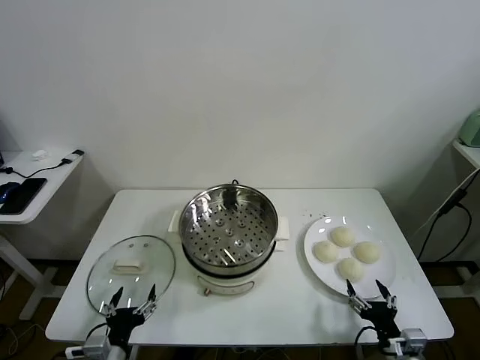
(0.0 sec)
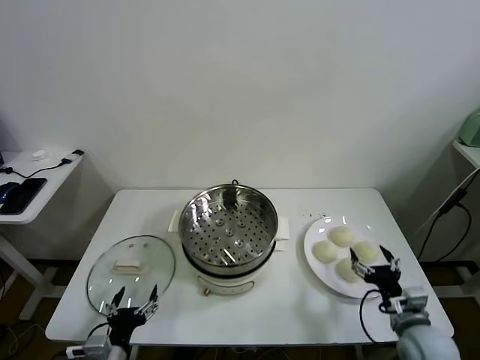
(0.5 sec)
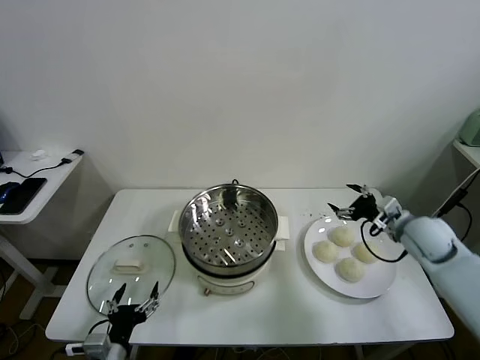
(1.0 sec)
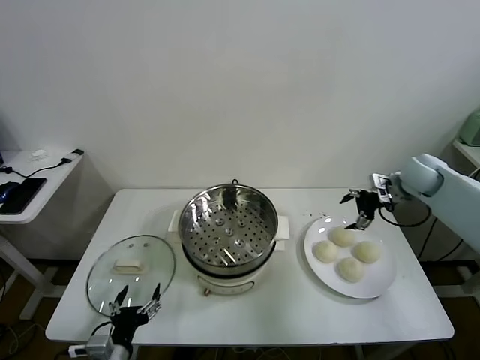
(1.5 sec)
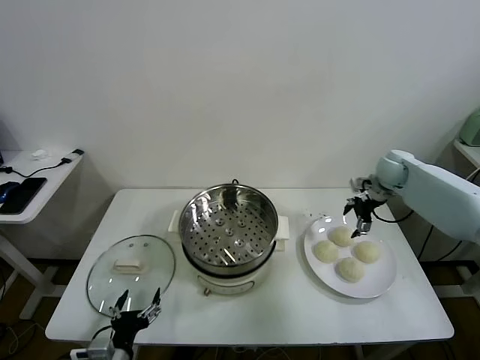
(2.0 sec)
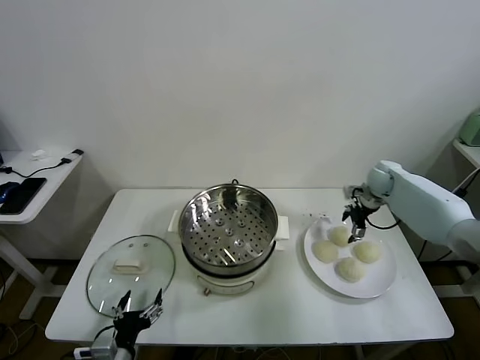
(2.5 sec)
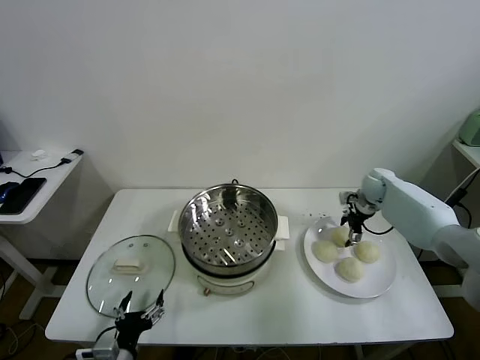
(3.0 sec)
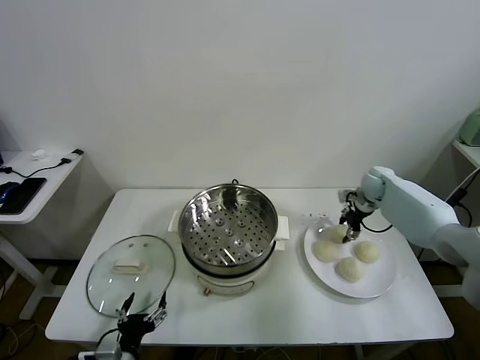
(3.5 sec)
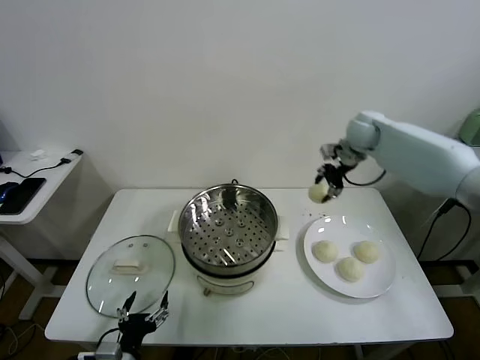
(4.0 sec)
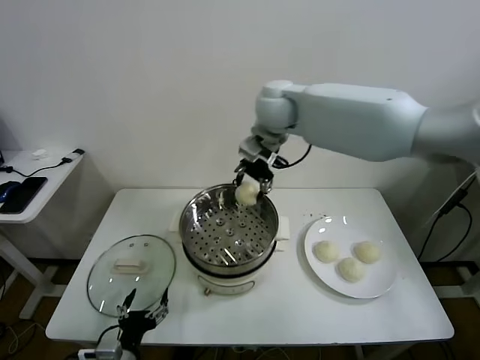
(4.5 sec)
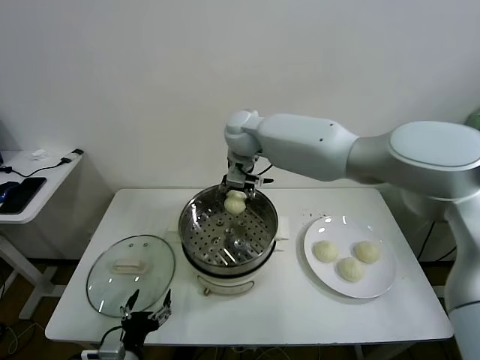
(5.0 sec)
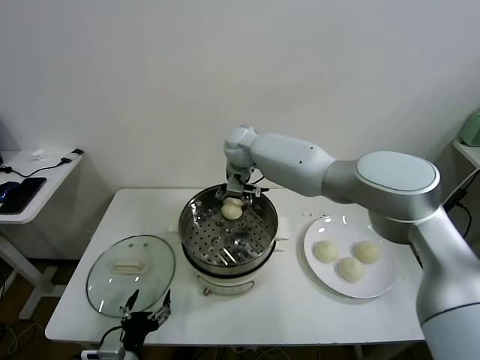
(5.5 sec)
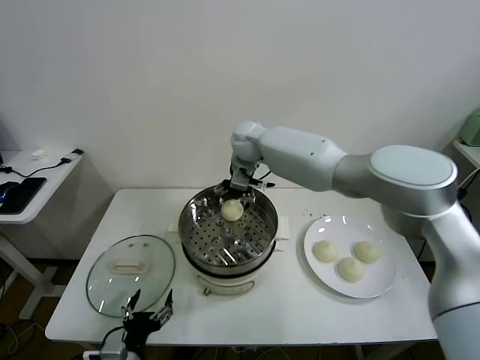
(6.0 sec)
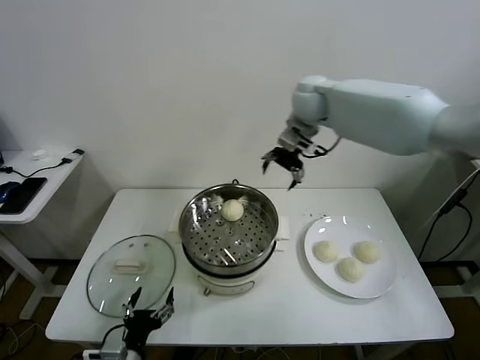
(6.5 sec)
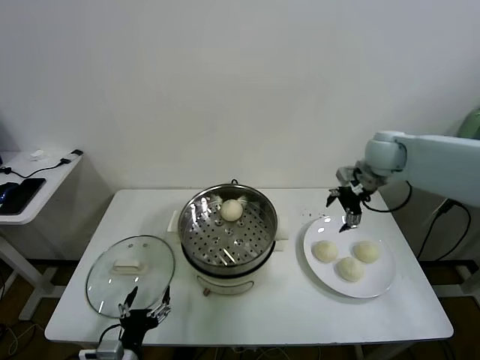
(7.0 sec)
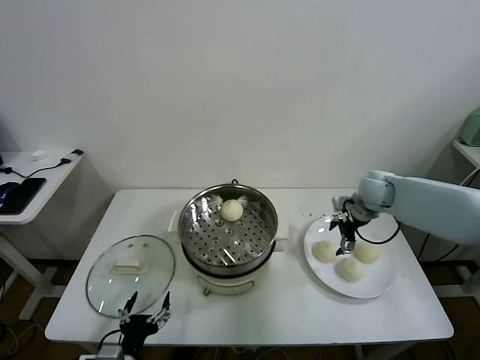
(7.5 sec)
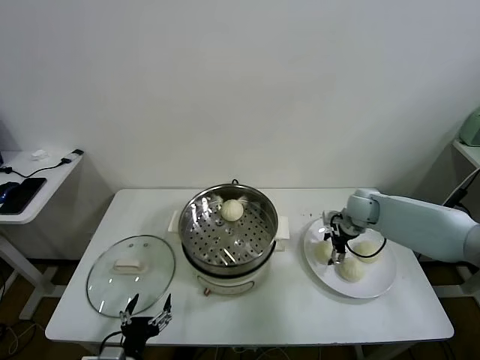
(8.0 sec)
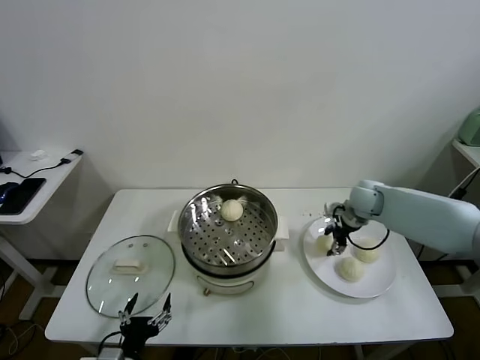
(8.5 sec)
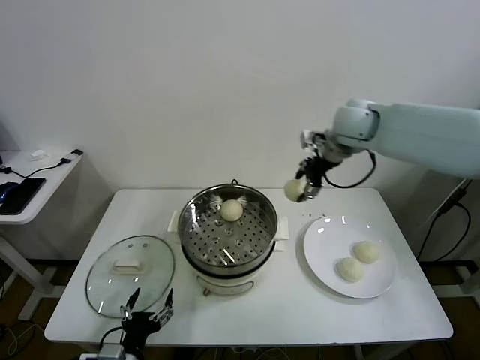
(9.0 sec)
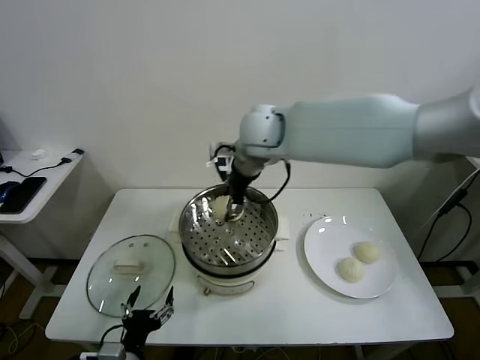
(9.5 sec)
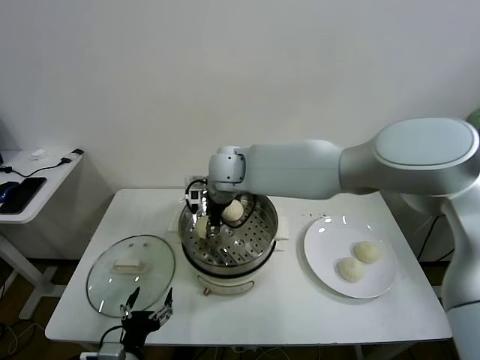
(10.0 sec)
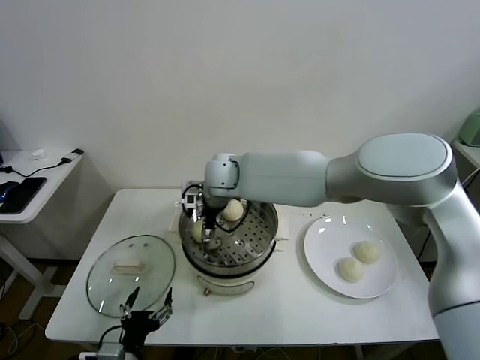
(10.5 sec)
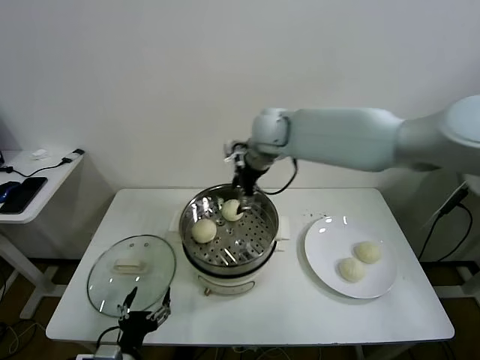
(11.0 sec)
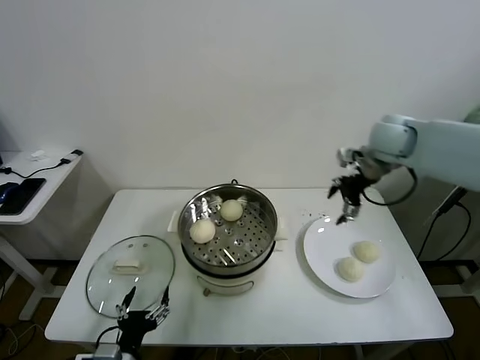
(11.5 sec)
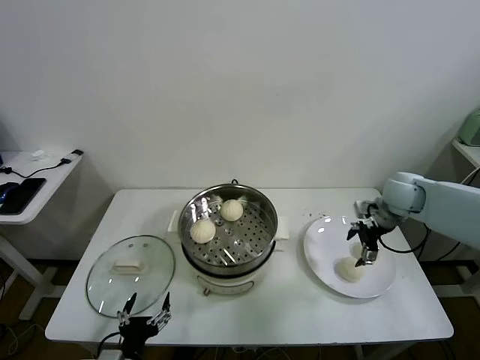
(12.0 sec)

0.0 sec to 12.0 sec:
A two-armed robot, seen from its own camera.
Task of the whole recording: take steamed baozi put them in steamer.
Step, 0.0 sec to 3.0 sec: Grasp the baozi in the plate with right gripper.
Step, 3.5 sec to 5.5 sec: Place the baozi on the steamer with right gripper.
Step, 6.0 sec to 8.0 sec: Grasp the baozi in the plate with right gripper.
Step, 8.5 sec to 10.5 sec: Place the baozi on the steamer with right gripper.
2.0 sec to 4.0 sec: The right gripper travels upward and to the left by about 20 cm, and closes its fingers.
4.0 sec to 6.0 sec: The right gripper moves to the left, some 25 cm, and opens its fingers.
6.0 sec to 8.0 sec: The right gripper heads to the right and downward, covering about 35 cm.
8.0 sec to 10.0 sec: The right gripper heads to the left and upward, covering about 40 cm, and closes up.
10.0 sec to 12.0 sec: The right gripper is displaced to the right by some 40 cm, and opens.

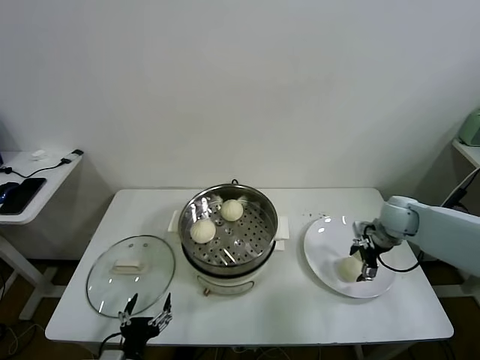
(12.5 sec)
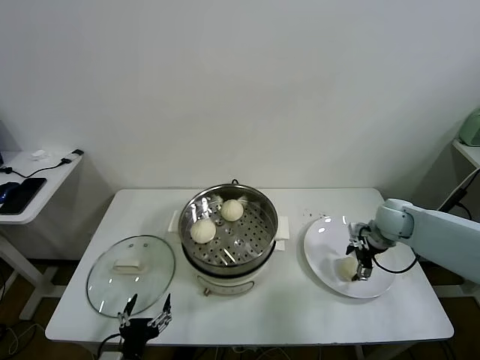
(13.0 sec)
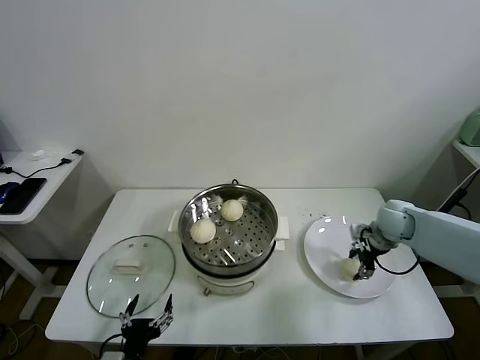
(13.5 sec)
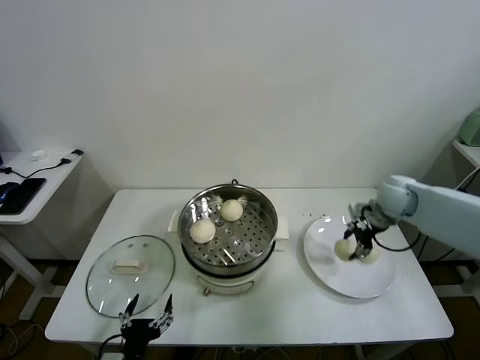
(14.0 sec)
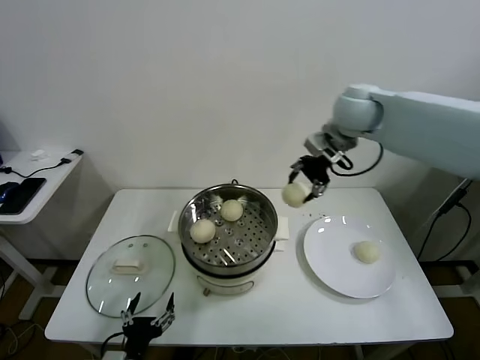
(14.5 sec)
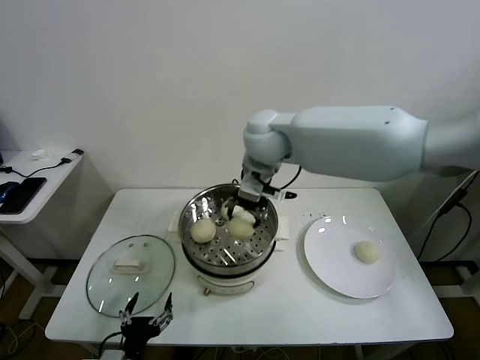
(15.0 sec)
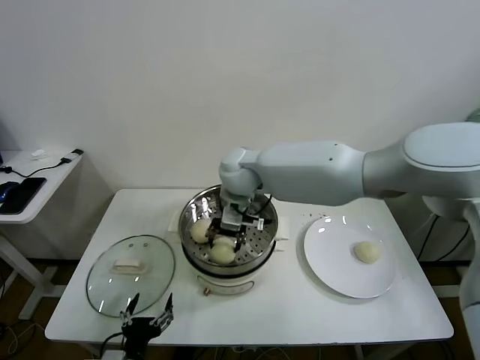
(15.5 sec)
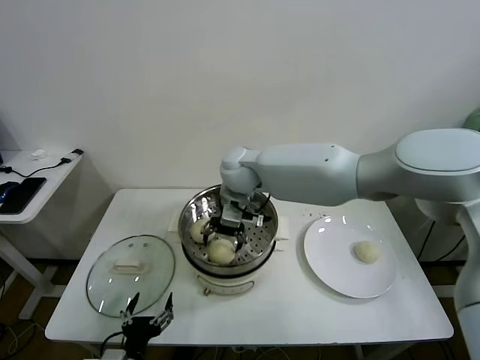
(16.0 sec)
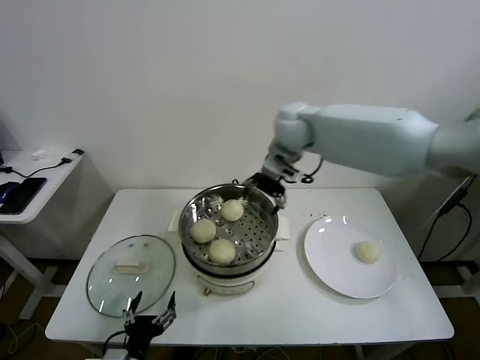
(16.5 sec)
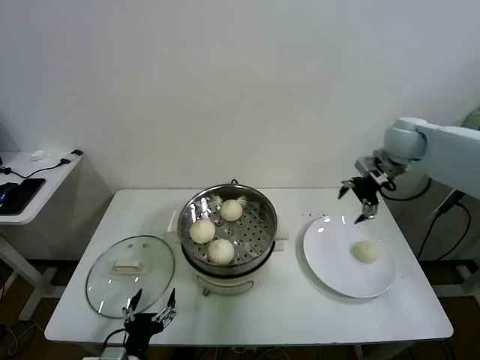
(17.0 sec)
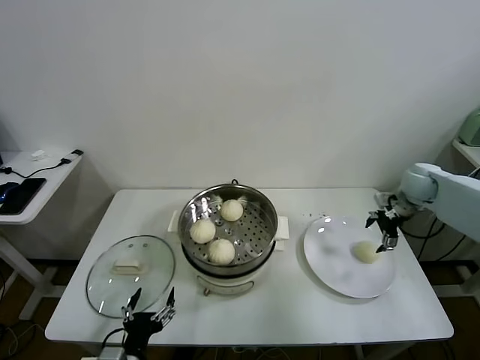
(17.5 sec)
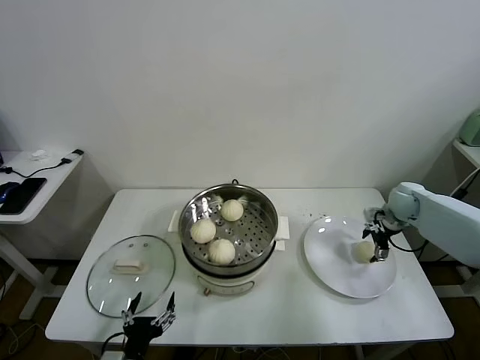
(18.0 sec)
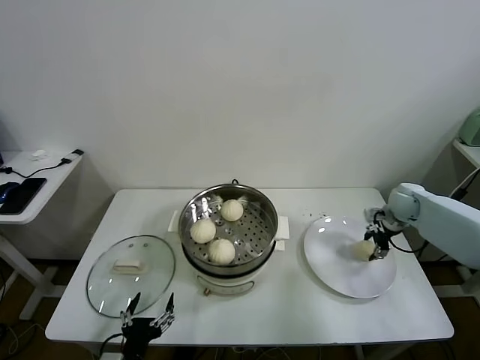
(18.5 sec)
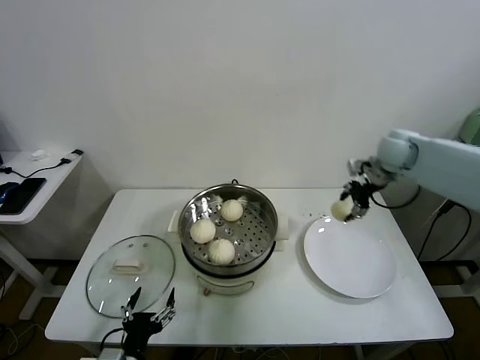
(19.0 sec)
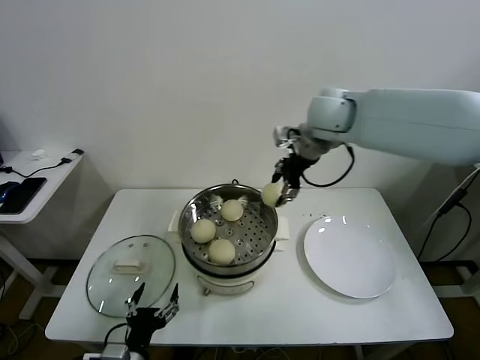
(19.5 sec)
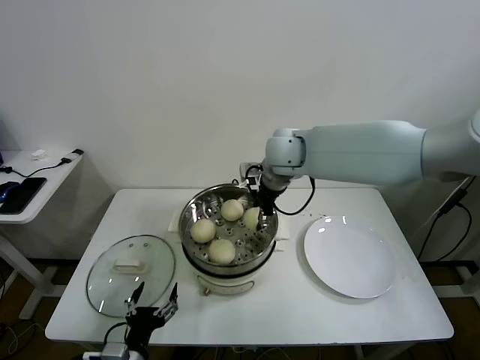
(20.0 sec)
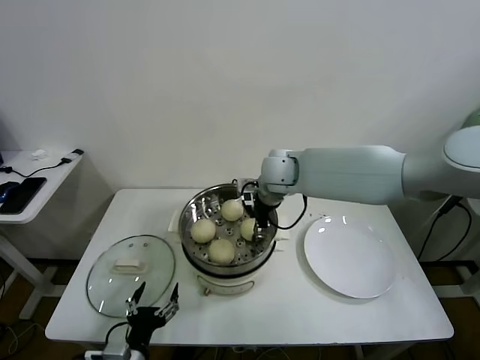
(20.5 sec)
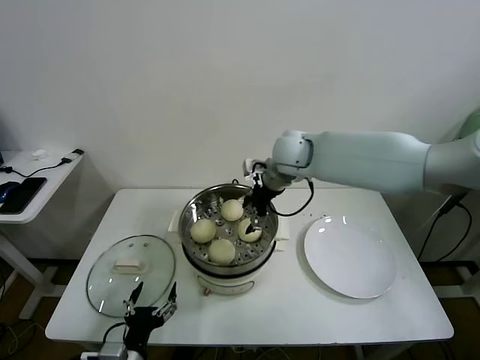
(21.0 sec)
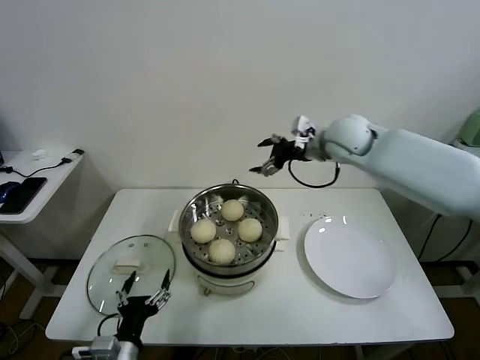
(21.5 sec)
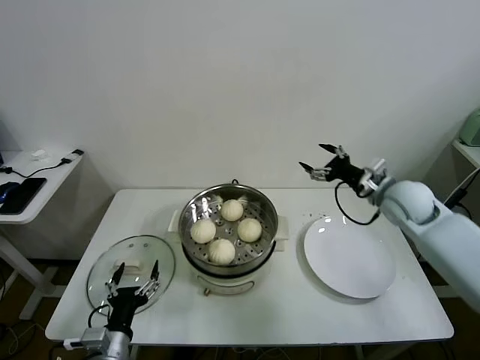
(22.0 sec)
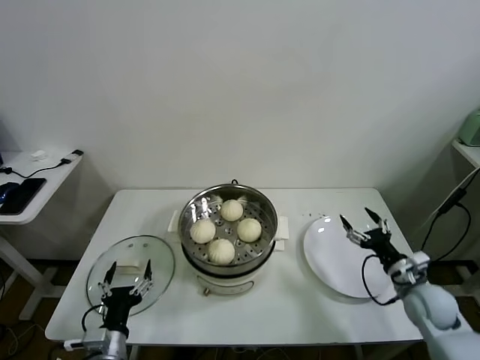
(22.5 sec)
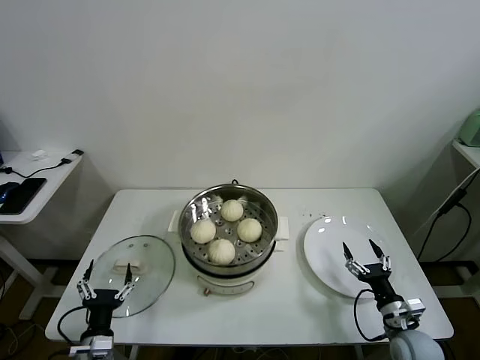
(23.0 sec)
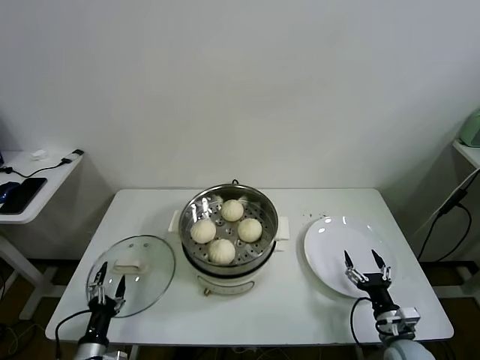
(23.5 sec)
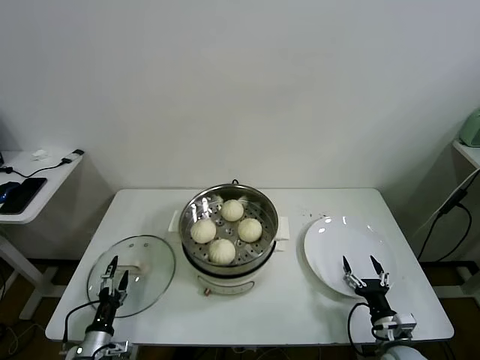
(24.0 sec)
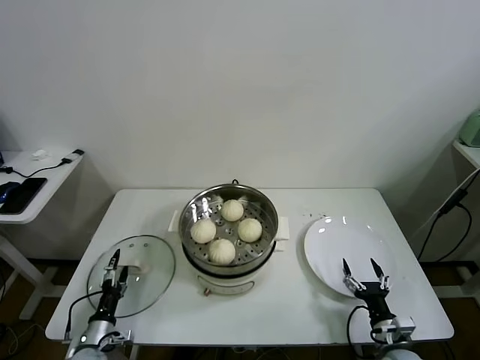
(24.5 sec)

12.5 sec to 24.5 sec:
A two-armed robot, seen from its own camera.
Task of the whole recording: take steamed baozi put them in steamer.
Step, 13.5 sec to 16.0 sec: Place the baozi on the steamer with right gripper.
Step, 16.5 sec to 18.0 sec: Grasp the baozi in the plate with right gripper.
Step, 18.5 sec to 20.5 sec: Place the baozi on the steamer with right gripper.
12.5 sec to 14.5 sec: The right gripper is displaced upward and to the left by roughly 30 cm, and closes its fingers.
14.5 sec to 16.5 sec: The right gripper goes roughly 10 cm to the left and downward, and opens its fingers.
16.5 sec to 18.5 sec: The right gripper goes some 40 cm to the right and downward, and closes its fingers.
18.5 sec to 20.5 sec: The right gripper travels to the left by some 35 cm.
20.5 sec to 22.5 sec: The right gripper travels to the right, downward and backward by about 40 cm, and opens up; the left gripper shifts by some 5 cm.
22.5 sec to 24.5 sec: The right gripper heads backward, downward and to the left, covering about 15 cm, while the left gripper moves downward, to the left and forward, roughly 15 cm.

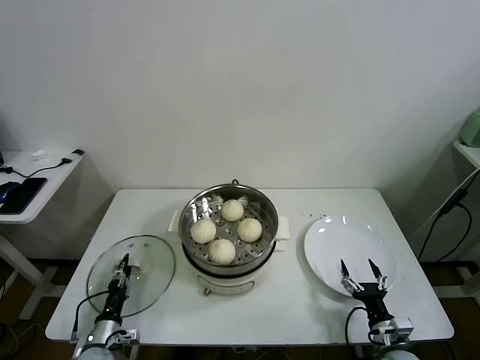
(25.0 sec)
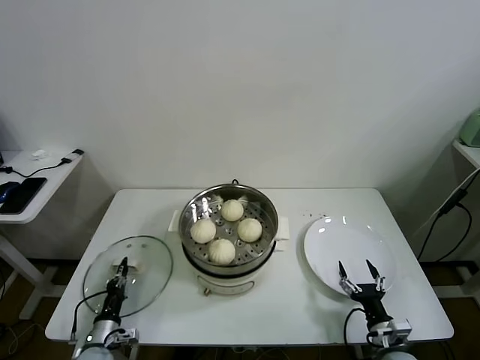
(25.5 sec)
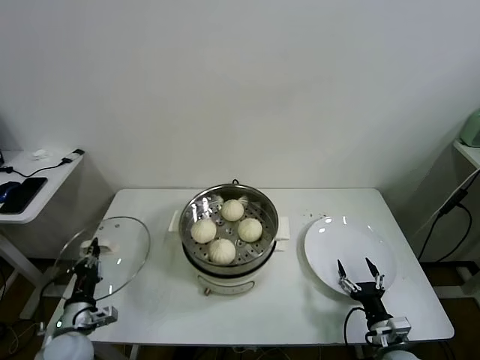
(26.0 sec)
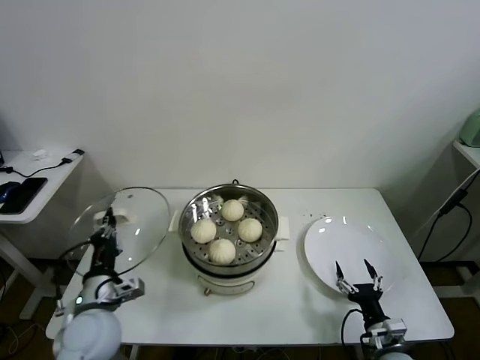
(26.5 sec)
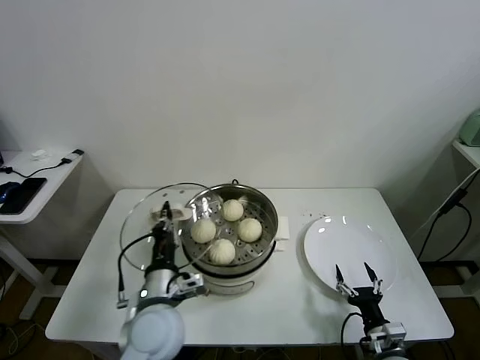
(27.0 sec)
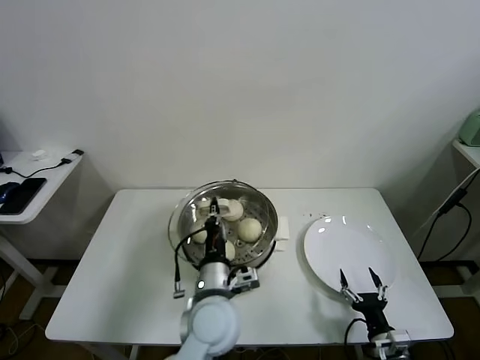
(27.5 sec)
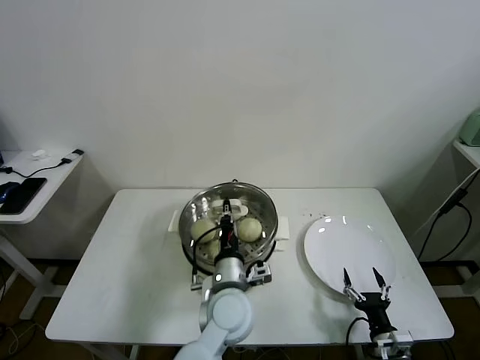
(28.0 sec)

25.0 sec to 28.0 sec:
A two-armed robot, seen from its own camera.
Task of the whole recording: take steamed baozi put them in steamer.
25.0 sec to 26.5 sec: The left gripper moves upward, some 20 cm, and closes.
26.5 sec to 28.0 sec: The left gripper travels to the right by approximately 25 cm.
